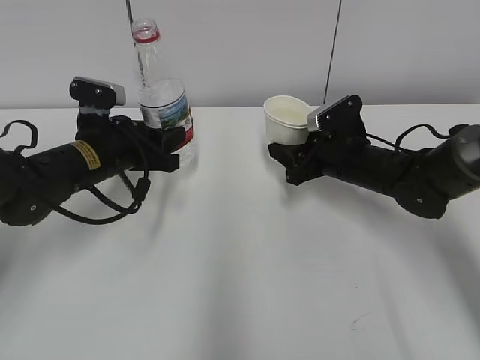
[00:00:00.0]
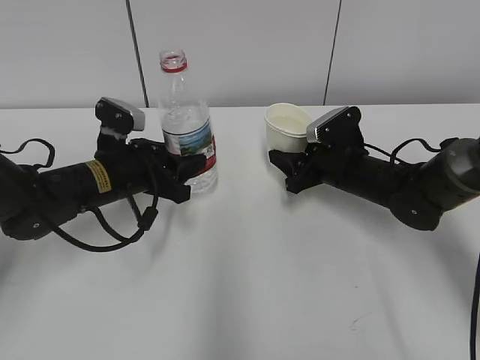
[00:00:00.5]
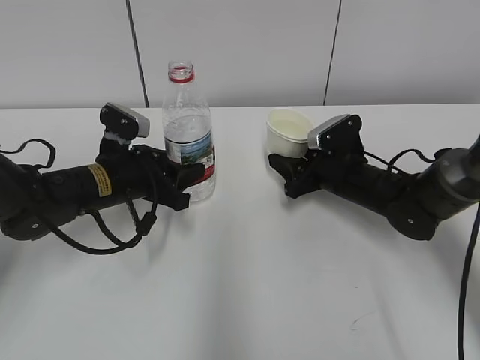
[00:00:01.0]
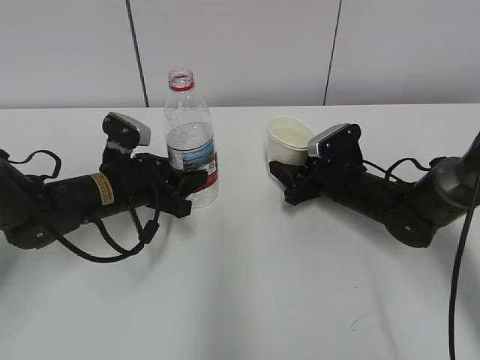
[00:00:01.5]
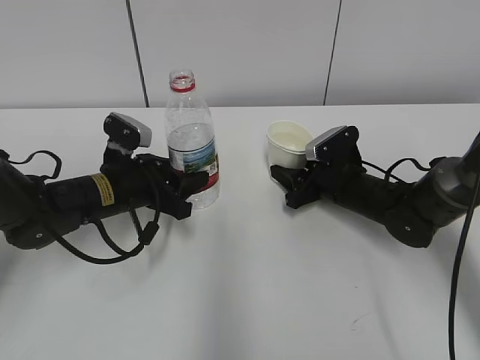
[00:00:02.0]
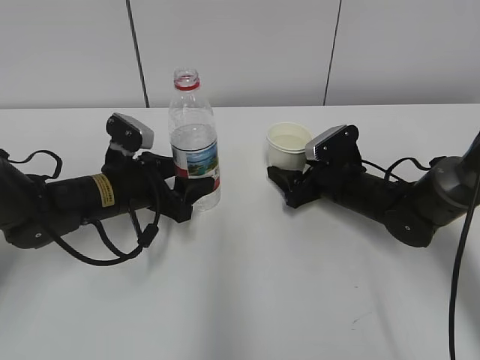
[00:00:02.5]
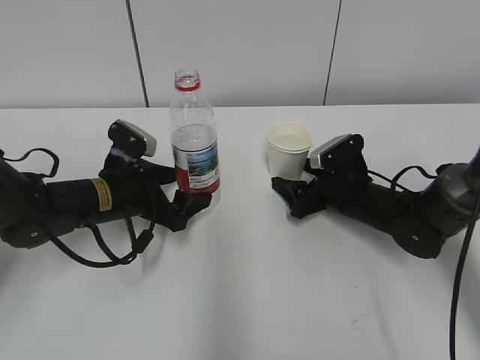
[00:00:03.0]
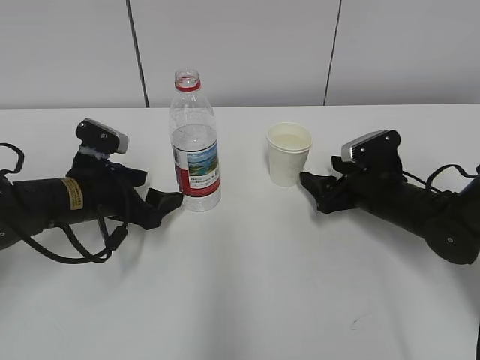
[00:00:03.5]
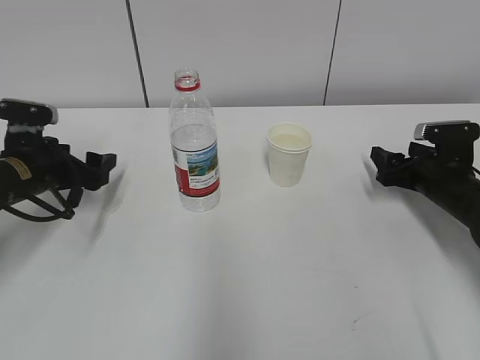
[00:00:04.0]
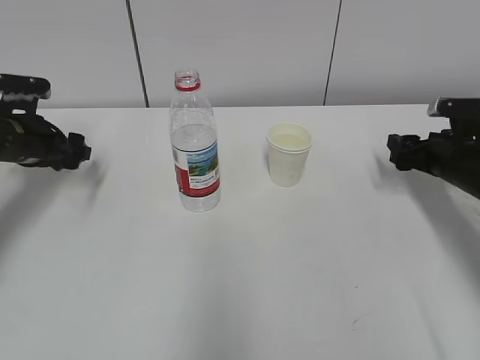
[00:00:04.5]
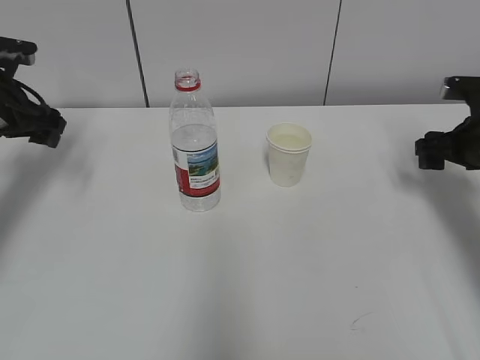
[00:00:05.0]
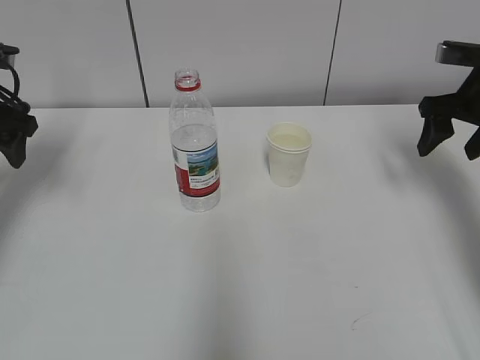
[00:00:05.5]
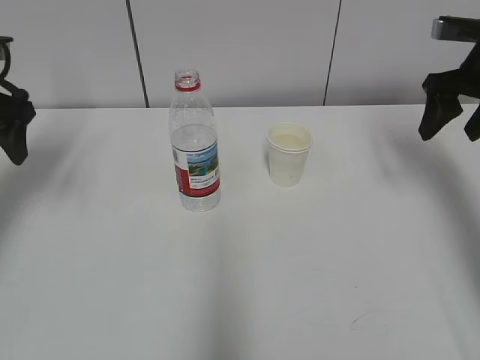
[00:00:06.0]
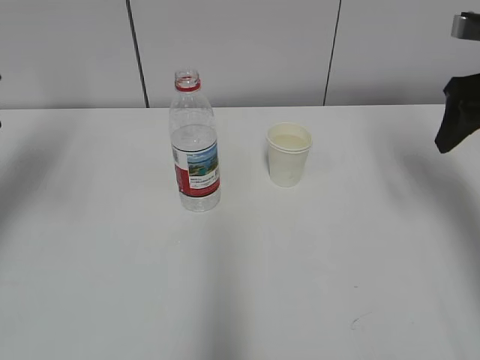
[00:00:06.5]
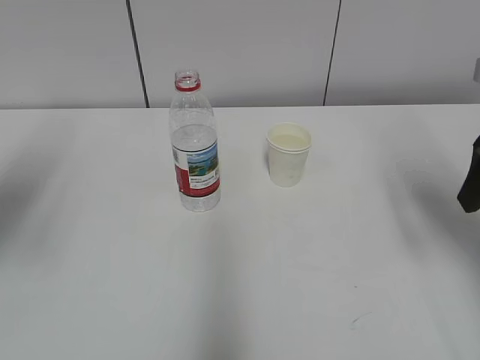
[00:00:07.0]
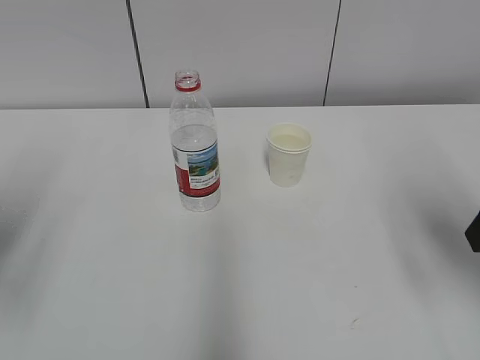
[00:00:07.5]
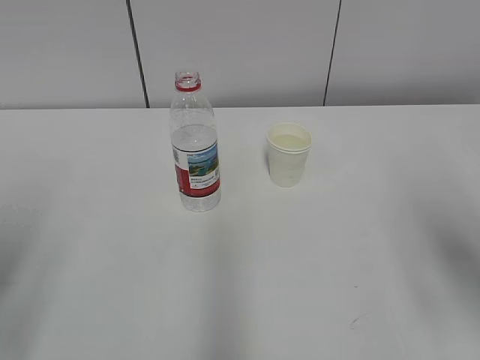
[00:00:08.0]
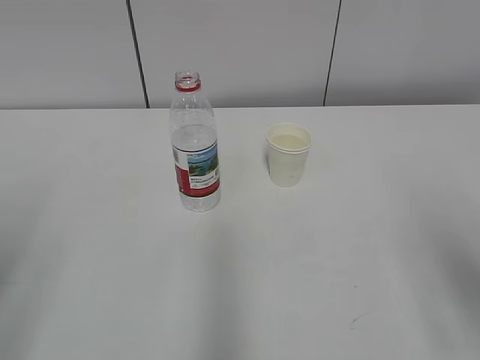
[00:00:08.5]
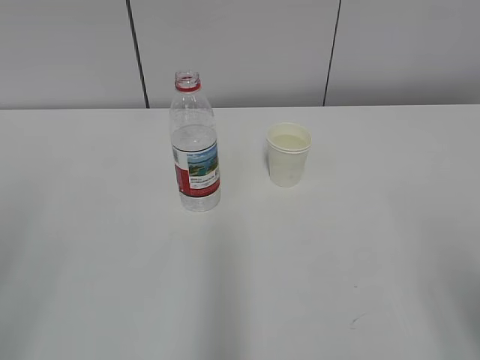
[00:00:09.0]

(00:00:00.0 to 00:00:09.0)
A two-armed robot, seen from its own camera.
00:00:02.0 - 00:00:04.5: The left gripper goes approximately 15 cm to the left, and opens up. The right gripper shifts about 15 cm to the right, and opens its fingers.
00:00:04.5 - 00:00:07.0: Both grippers move upward and backward, approximately 20 cm.
00:00:07.0 - 00:00:09.0: The grippers both shift backward by about 20 cm.

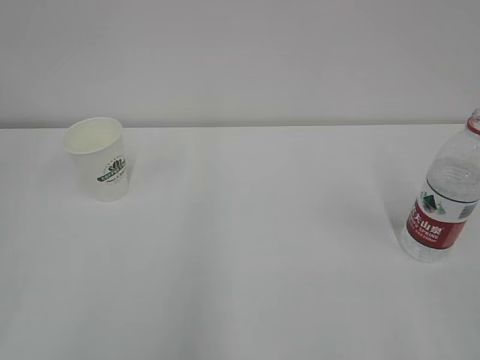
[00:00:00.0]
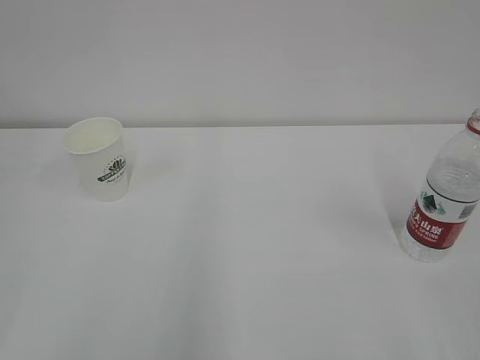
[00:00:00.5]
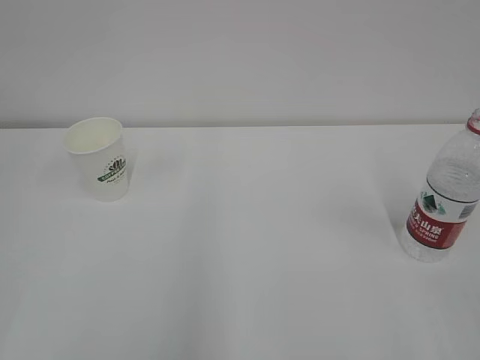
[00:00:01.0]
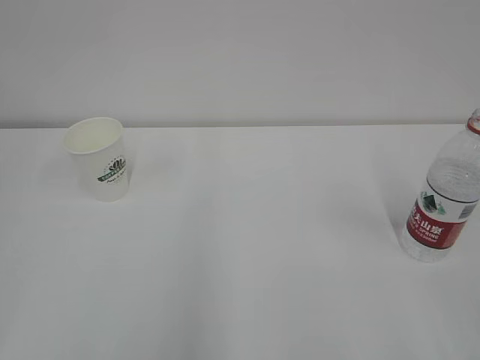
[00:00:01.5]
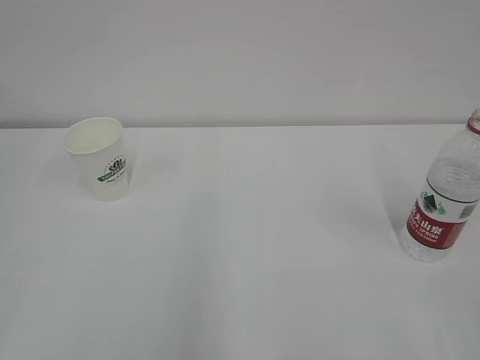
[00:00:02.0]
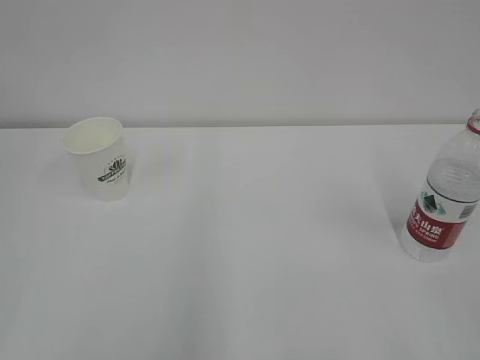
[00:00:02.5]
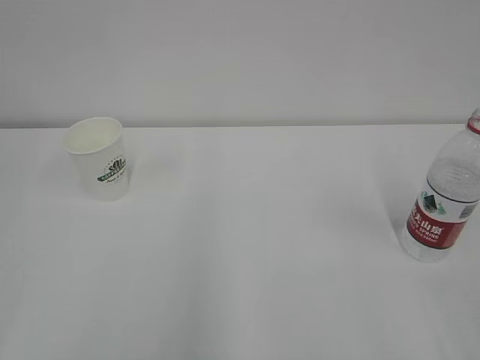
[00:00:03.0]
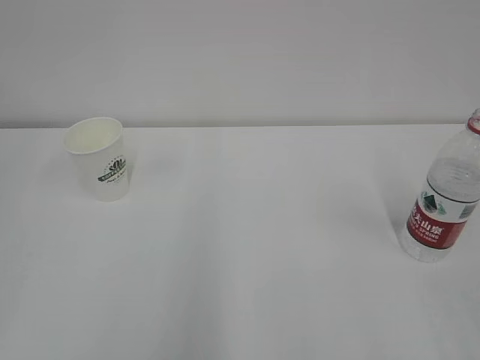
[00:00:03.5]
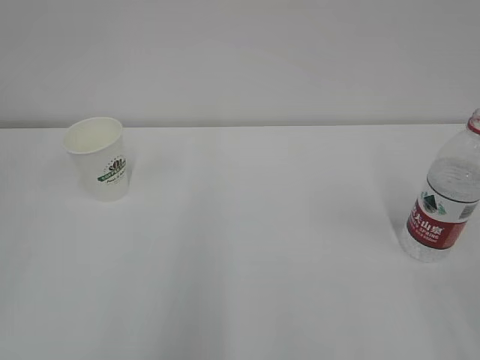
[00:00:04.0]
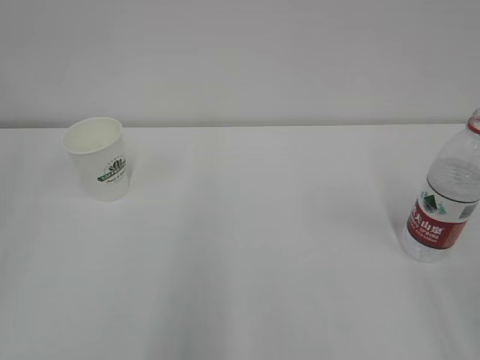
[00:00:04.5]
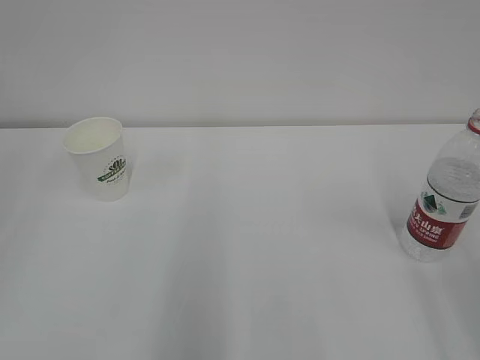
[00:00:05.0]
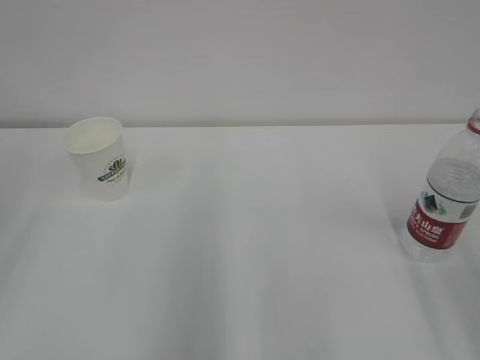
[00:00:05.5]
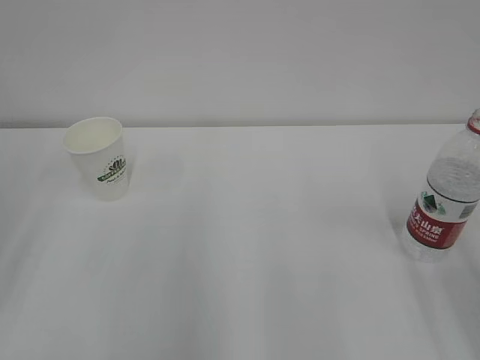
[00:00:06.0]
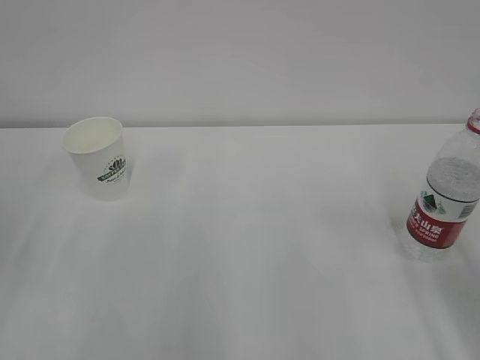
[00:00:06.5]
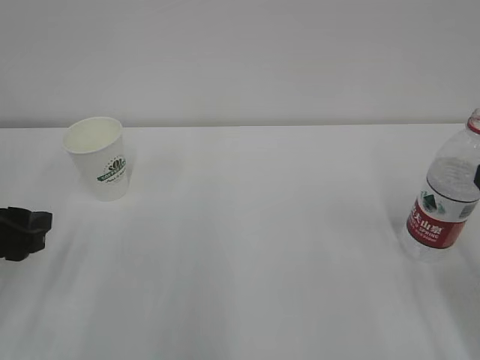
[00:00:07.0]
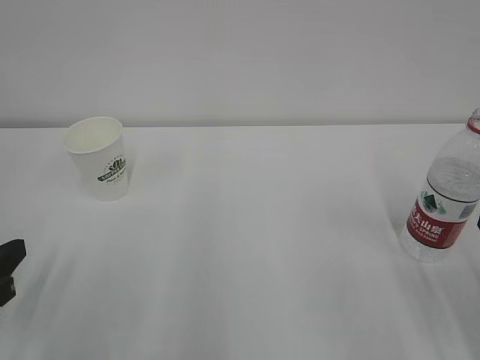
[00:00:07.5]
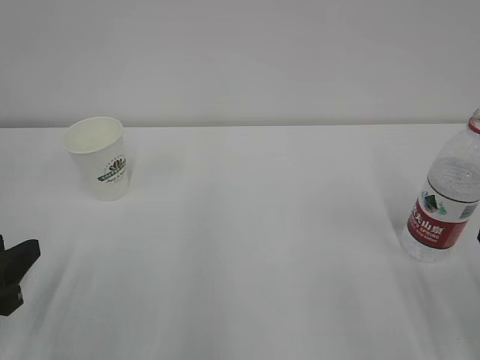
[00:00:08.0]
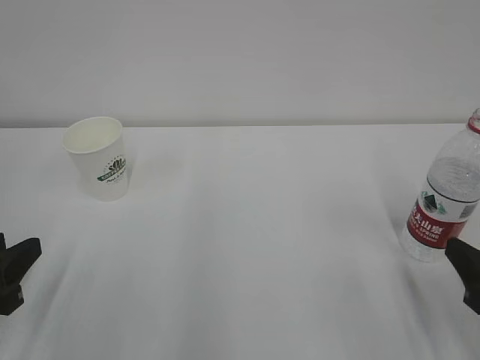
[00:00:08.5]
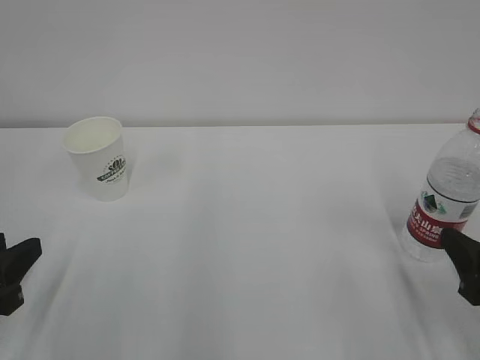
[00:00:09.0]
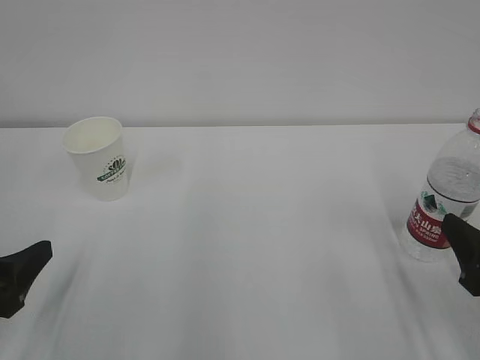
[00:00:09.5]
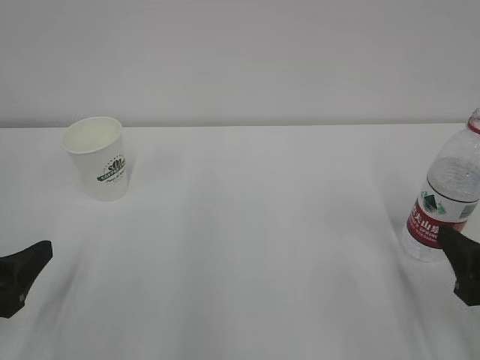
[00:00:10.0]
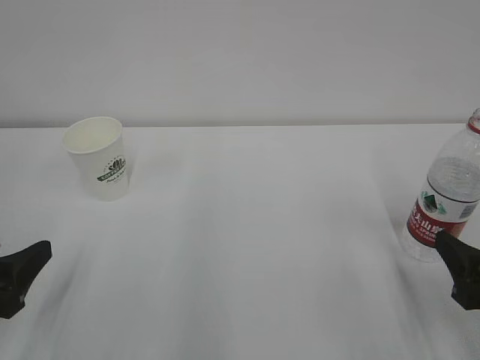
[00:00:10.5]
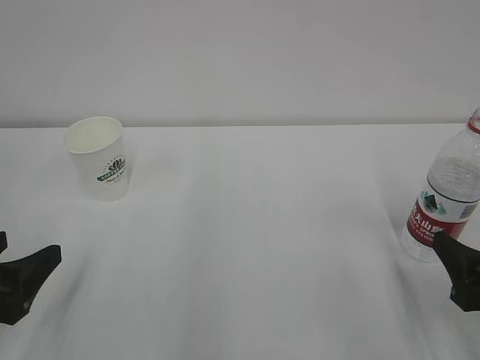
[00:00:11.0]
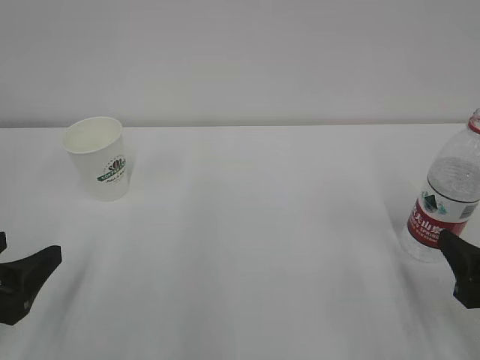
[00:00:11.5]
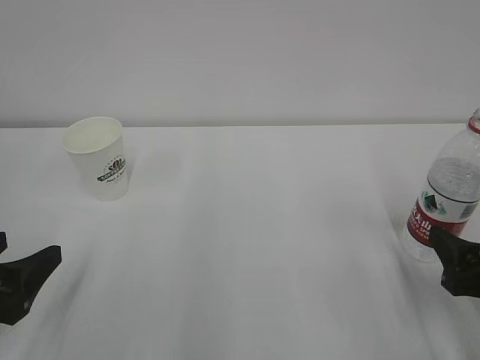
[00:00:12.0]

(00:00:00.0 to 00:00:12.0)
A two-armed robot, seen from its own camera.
00:00:06.0 - 00:00:08.0: The left gripper heads downward, covering some 10 cm, and closes.
00:00:08.0 - 00:00:10.0: The left gripper opens its fingers.
00:00:10.0 - 00:00:12.0: The grippers move only a little.

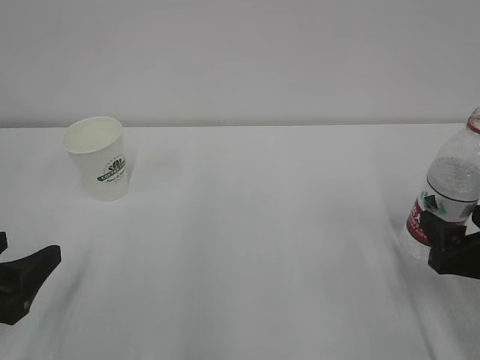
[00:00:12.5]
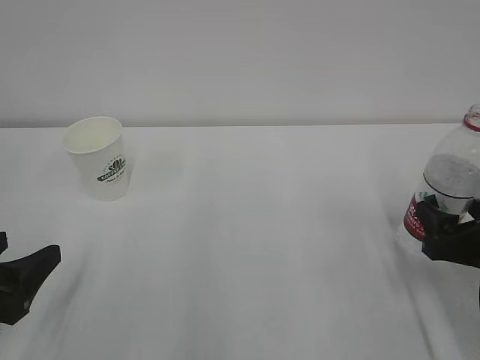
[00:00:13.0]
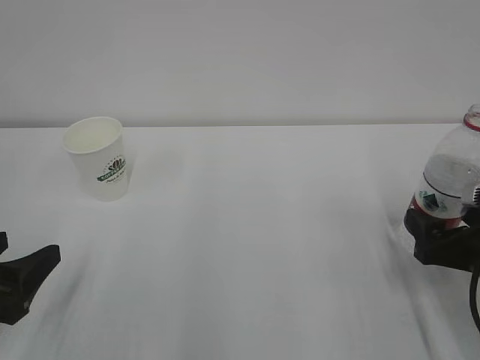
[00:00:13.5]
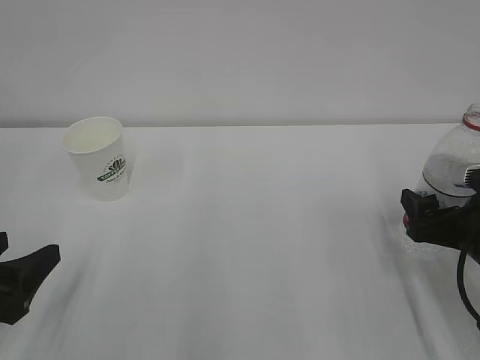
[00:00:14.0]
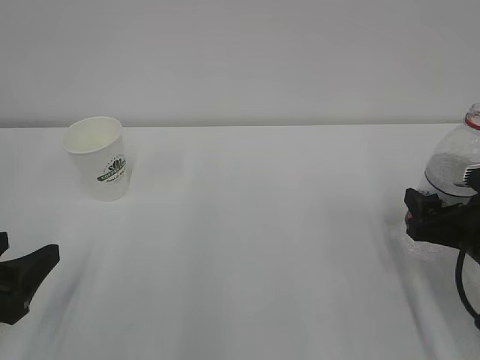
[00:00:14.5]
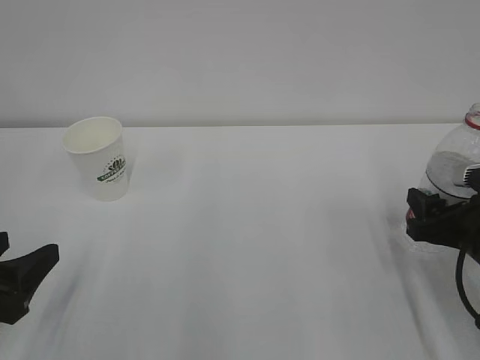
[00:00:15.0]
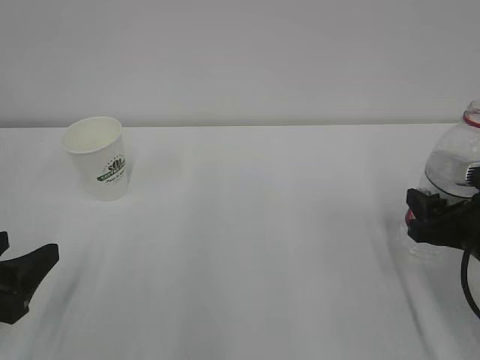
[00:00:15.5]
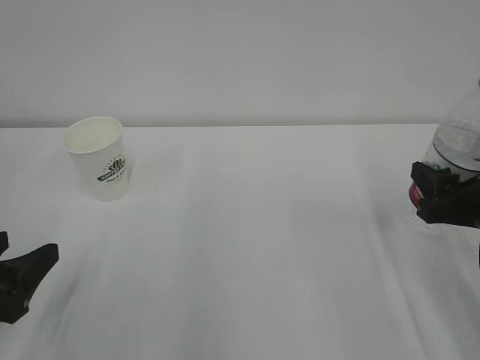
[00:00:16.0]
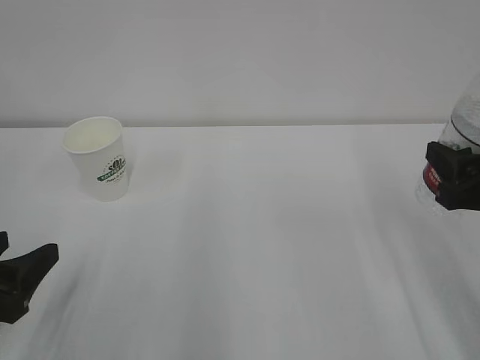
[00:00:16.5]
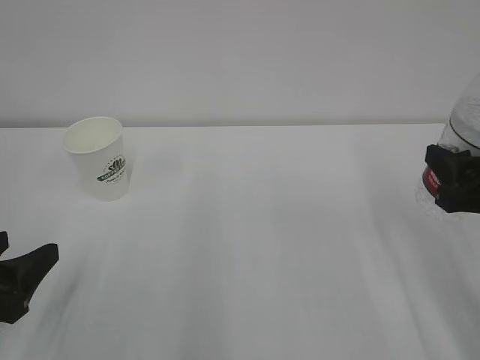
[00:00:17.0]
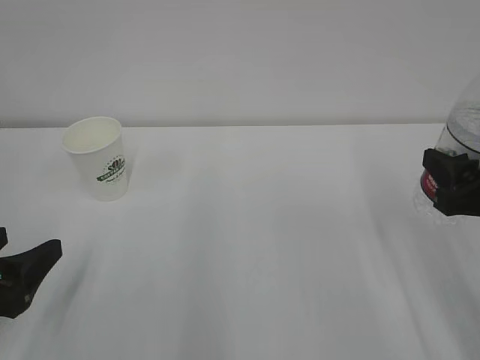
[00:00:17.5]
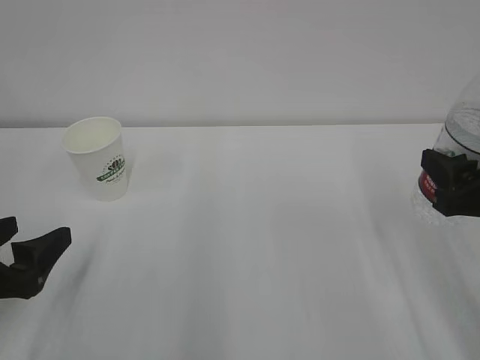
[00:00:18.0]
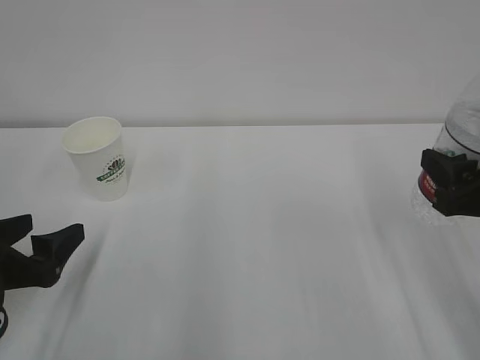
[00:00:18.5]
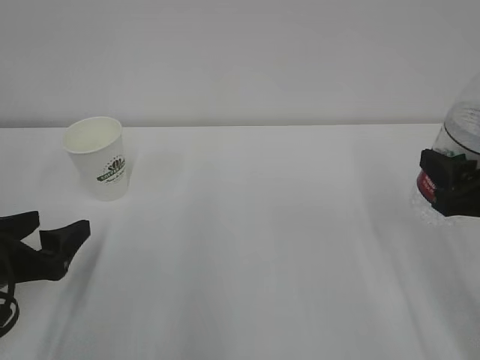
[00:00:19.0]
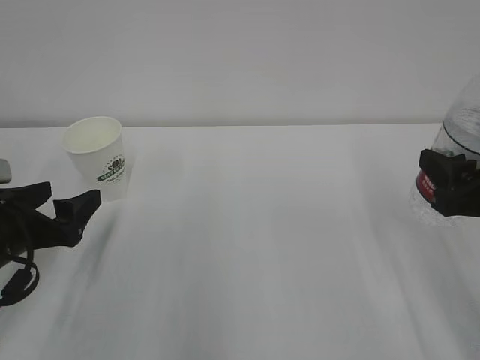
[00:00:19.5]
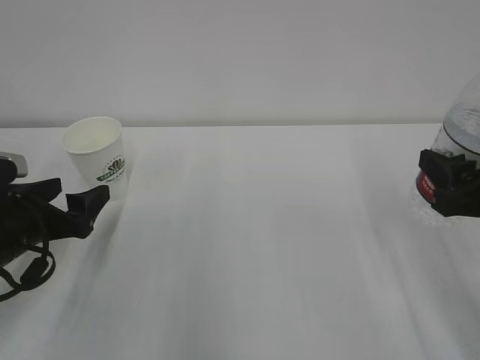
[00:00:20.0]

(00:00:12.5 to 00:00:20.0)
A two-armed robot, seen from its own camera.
00:00:12.5 - 00:00:14.5: The right gripper moves some 5 cm.
00:00:14.5 - 00:00:16.5: The right gripper heads upward, covering about 10 cm, and closes.
00:00:16.5 - 00:00:18.0: There are only small adjustments of the grippers.
00:00:18.0 - 00:00:20.0: The left gripper shifts approximately 10 cm forward.
